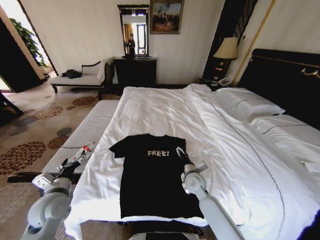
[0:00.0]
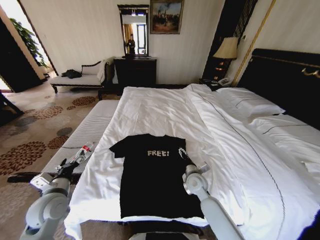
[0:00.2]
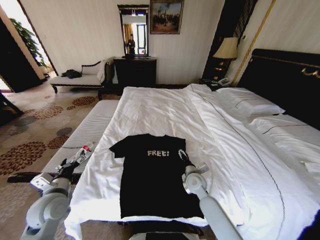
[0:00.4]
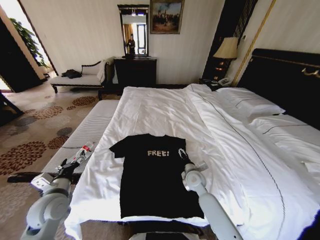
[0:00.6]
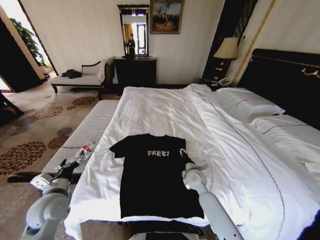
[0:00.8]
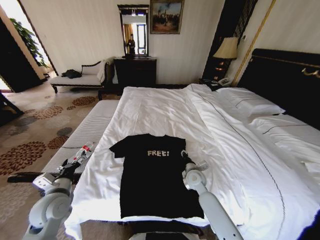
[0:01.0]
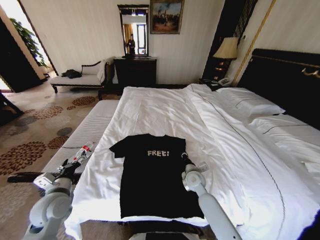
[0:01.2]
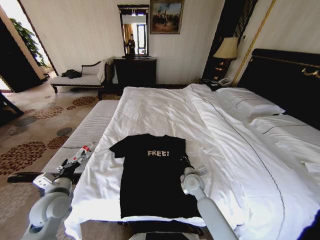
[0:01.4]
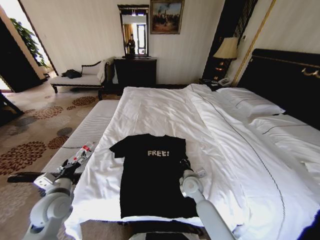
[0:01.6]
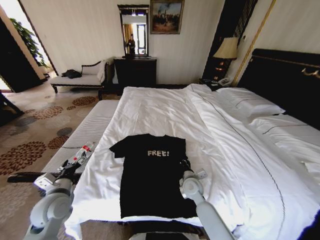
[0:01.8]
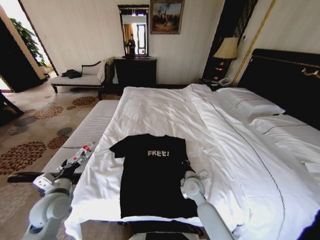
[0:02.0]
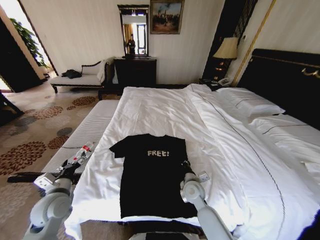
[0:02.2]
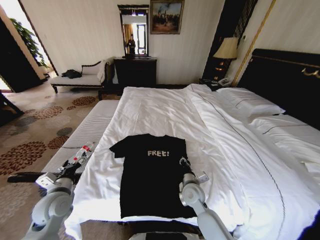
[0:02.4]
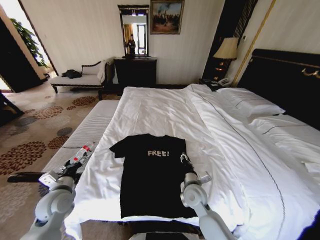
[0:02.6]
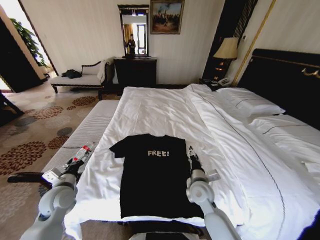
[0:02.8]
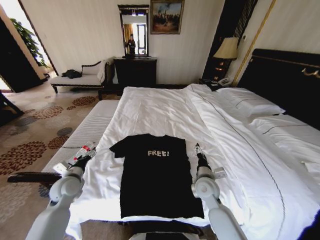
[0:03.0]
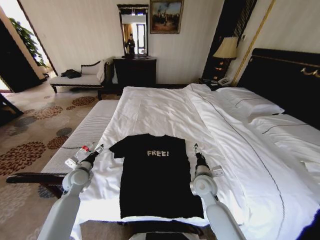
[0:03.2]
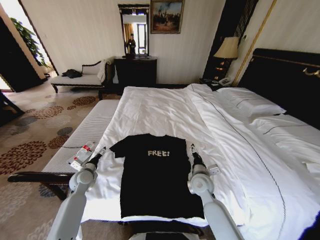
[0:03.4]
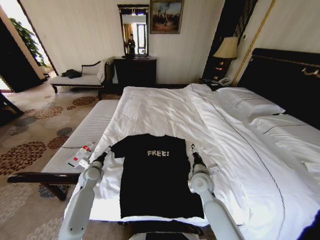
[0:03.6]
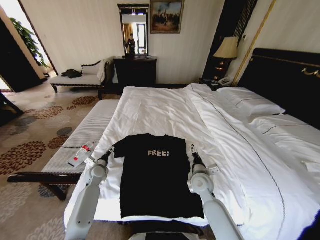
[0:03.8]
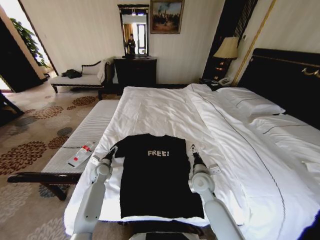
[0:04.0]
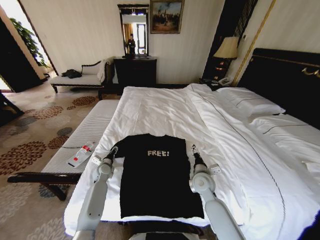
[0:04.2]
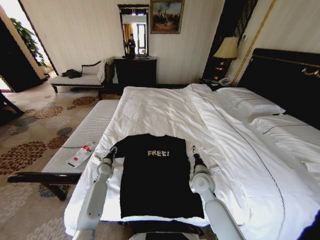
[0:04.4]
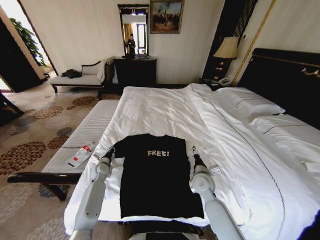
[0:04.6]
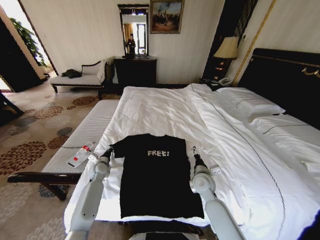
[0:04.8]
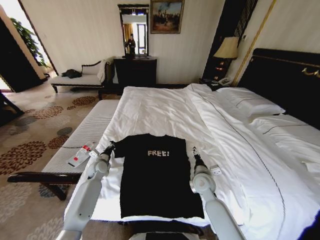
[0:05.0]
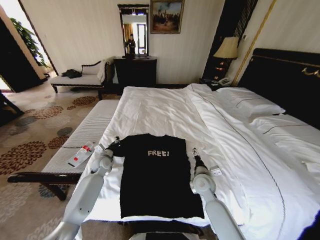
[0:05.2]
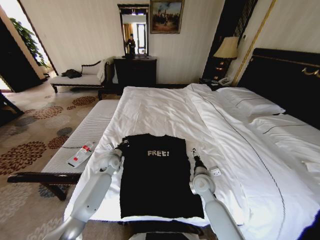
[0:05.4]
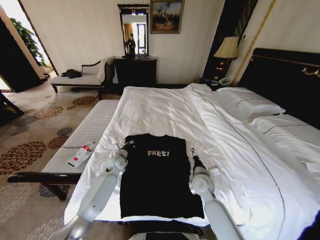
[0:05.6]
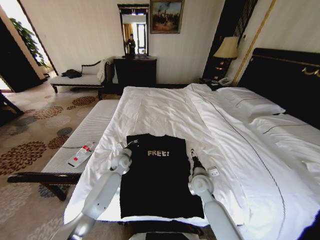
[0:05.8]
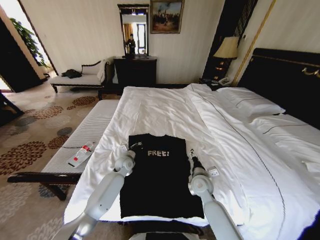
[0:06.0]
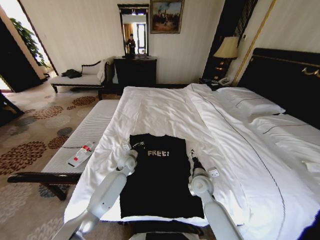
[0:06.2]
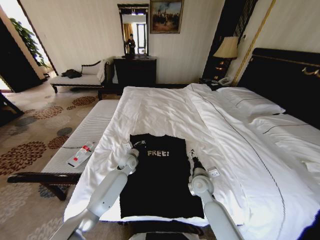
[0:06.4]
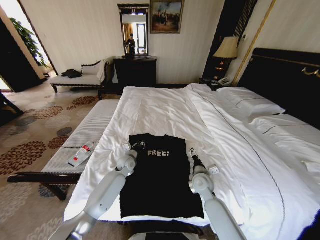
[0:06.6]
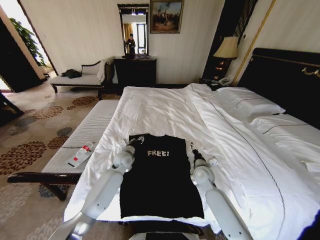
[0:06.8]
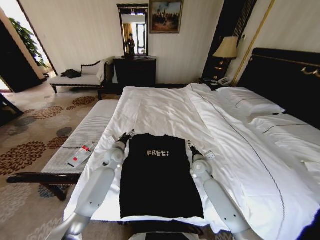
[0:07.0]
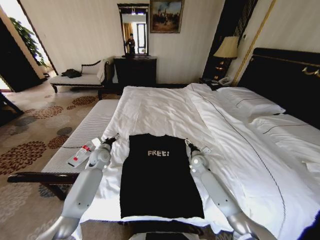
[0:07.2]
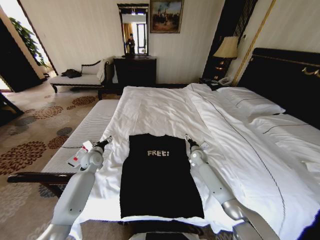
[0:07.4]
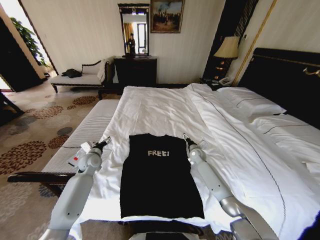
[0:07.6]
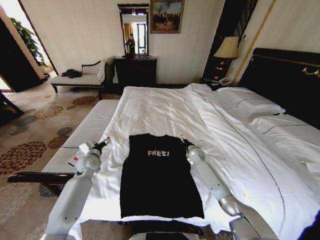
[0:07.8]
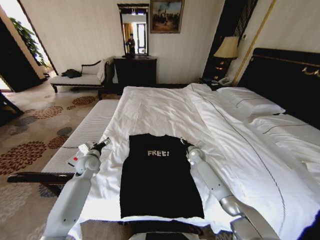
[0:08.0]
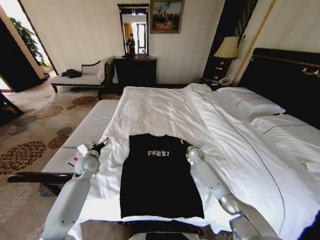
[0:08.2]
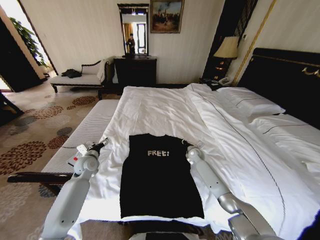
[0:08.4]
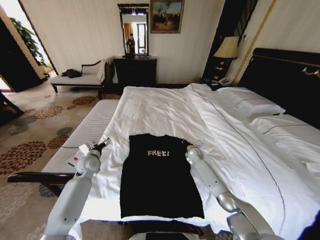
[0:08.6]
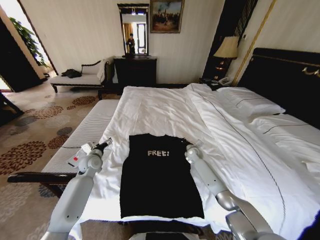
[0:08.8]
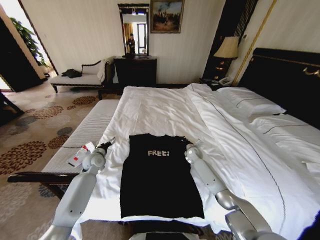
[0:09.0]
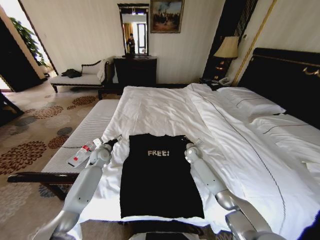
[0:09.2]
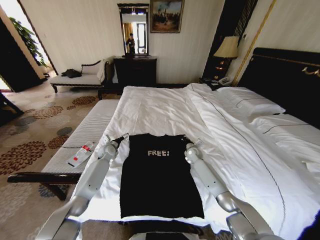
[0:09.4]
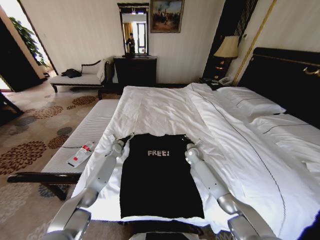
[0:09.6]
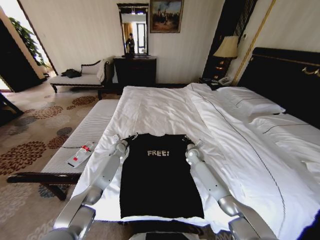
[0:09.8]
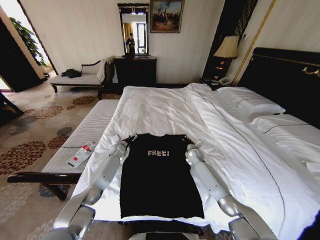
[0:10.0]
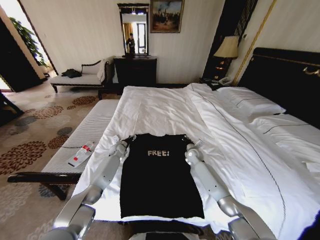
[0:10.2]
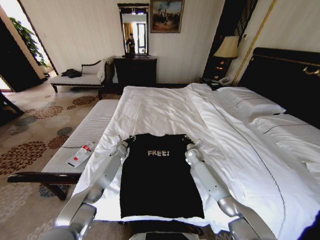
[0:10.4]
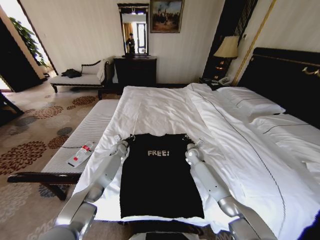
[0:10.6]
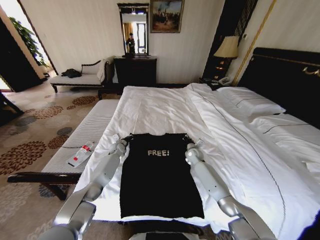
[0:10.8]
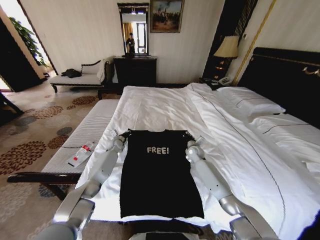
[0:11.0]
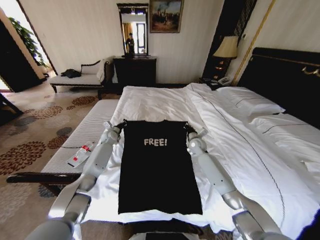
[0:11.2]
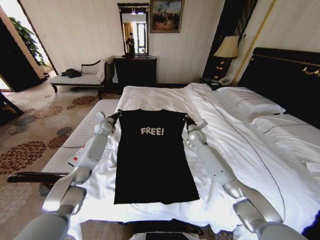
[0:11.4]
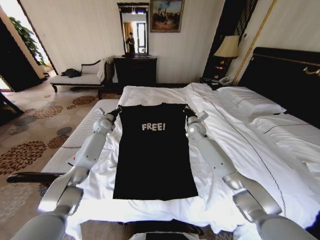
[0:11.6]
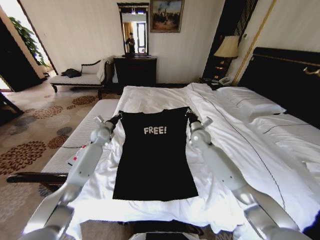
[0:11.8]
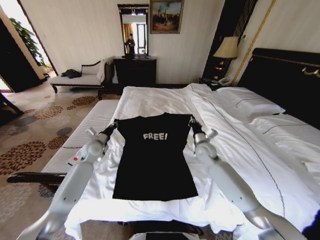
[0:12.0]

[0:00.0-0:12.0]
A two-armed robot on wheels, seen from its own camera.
Task of the whole recording: Fold the clothes on the bed.
0.0 to 1.6 s: The right gripper closes.
1.6 to 3.0 s: The left gripper moves forward, about 5 cm; the right gripper travels upward by some 5 cm, and opens up.
3.0 to 4.4 s: The left gripper travels forward, downward and to the right by about 20 cm, and closes.
4.4 to 6.0 s: The left gripper goes approximately 15 cm to the right, and closes its fingers.
6.0 to 7.6 s: The left gripper goes roughly 15 cm to the left, and opens up. Meanwhile the right gripper is displaced forward by about 20 cm.
7.6 to 9.0 s: The right gripper closes.
9.0 to 10.4 s: The left gripper travels forward, downward and to the right by roughly 15 cm, and closes.
10.4 to 12.0 s: The left gripper moves upward, backward and to the left, roughly 20 cm, and closes up. The right gripper travels upward and backward by approximately 15 cm.

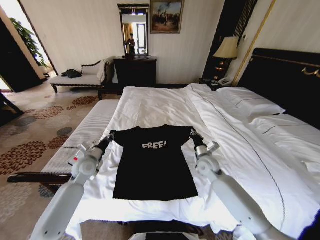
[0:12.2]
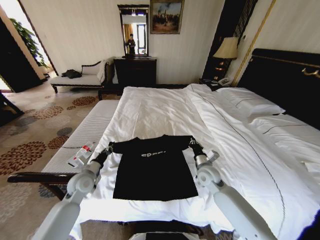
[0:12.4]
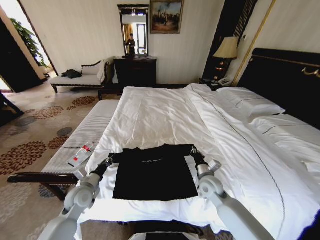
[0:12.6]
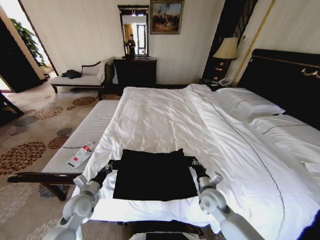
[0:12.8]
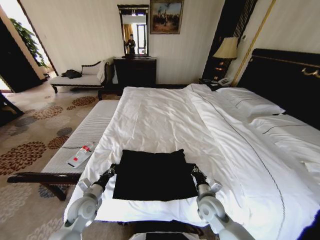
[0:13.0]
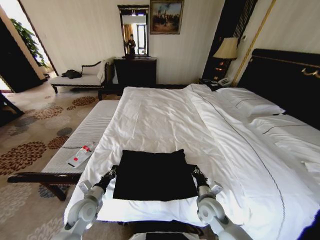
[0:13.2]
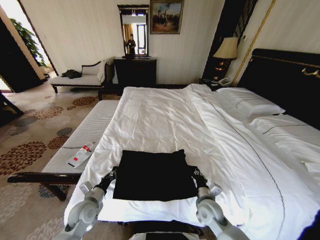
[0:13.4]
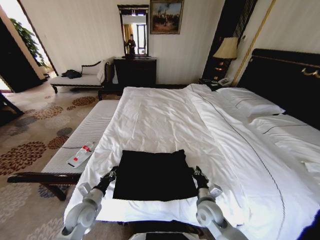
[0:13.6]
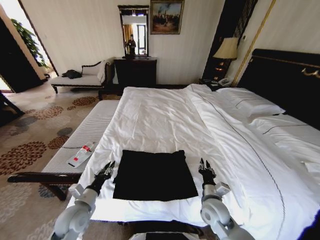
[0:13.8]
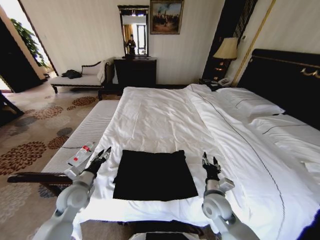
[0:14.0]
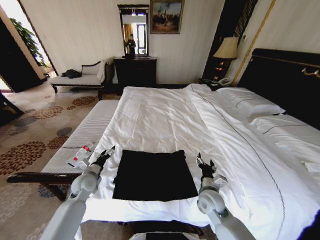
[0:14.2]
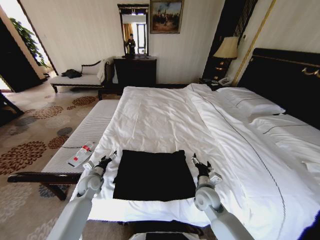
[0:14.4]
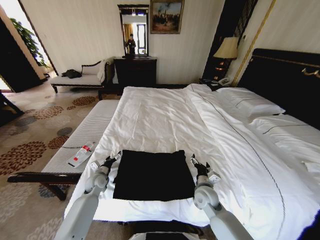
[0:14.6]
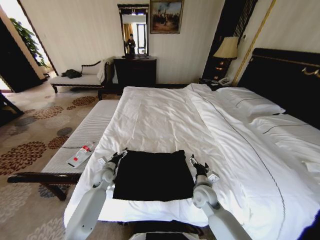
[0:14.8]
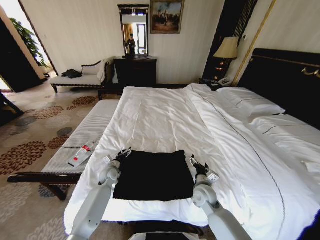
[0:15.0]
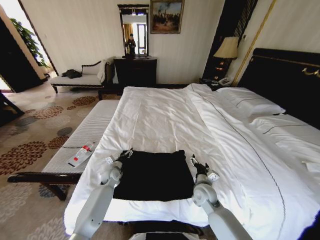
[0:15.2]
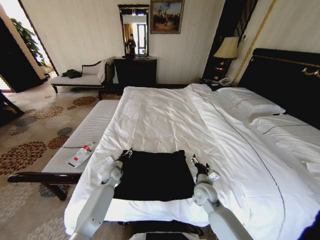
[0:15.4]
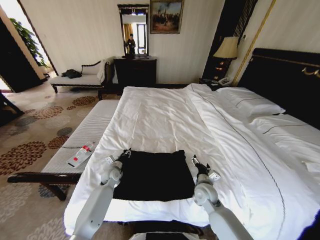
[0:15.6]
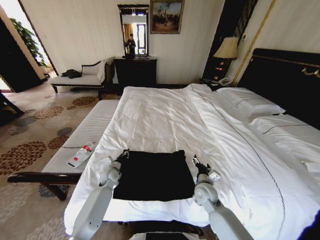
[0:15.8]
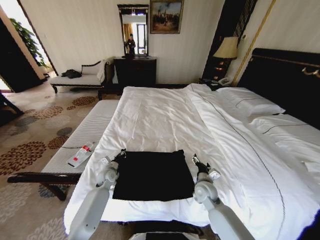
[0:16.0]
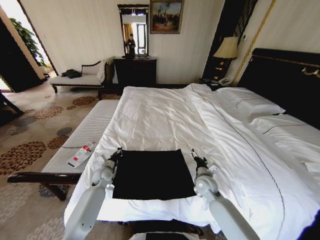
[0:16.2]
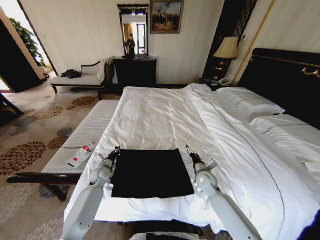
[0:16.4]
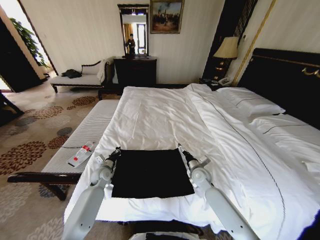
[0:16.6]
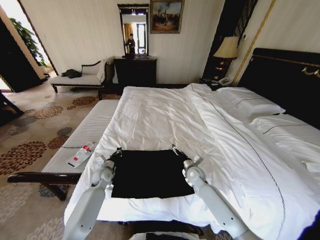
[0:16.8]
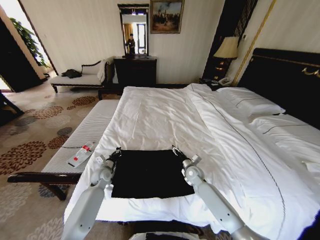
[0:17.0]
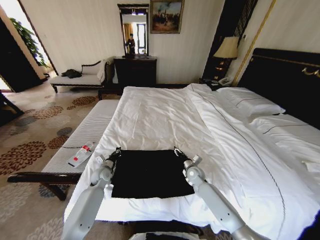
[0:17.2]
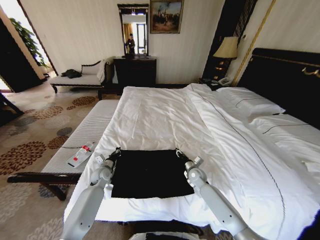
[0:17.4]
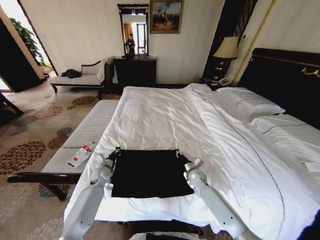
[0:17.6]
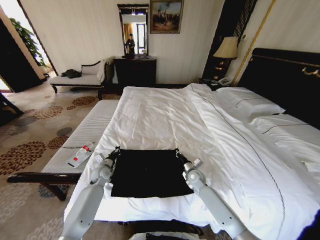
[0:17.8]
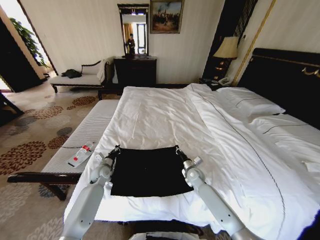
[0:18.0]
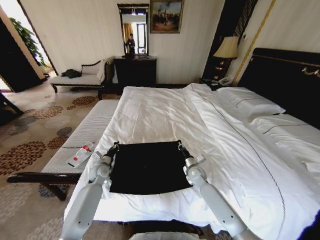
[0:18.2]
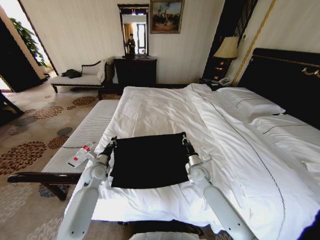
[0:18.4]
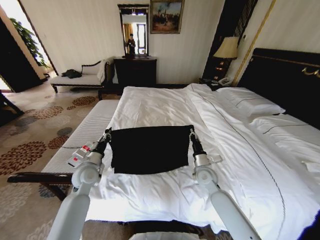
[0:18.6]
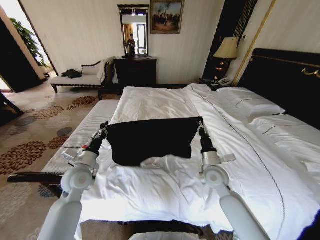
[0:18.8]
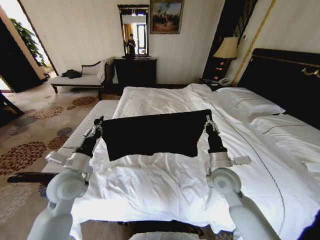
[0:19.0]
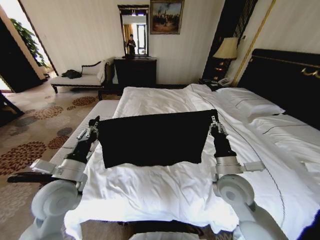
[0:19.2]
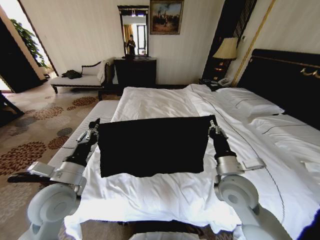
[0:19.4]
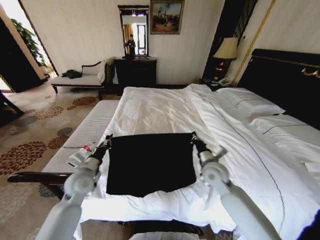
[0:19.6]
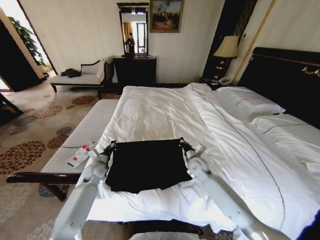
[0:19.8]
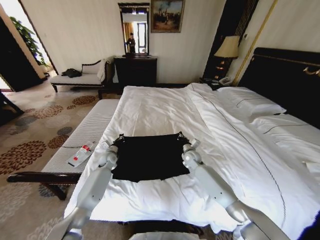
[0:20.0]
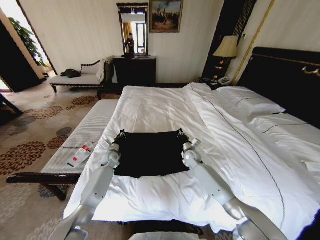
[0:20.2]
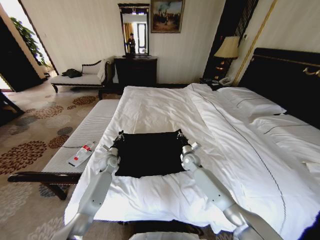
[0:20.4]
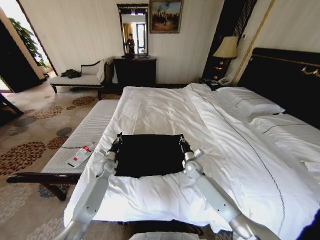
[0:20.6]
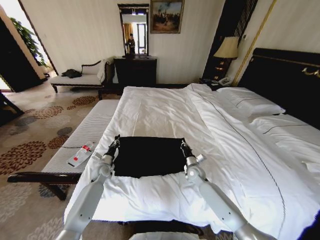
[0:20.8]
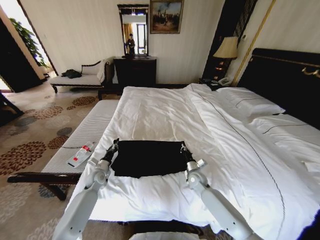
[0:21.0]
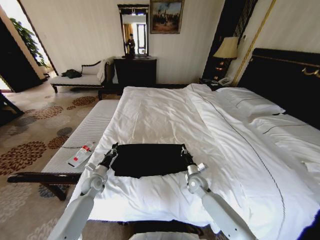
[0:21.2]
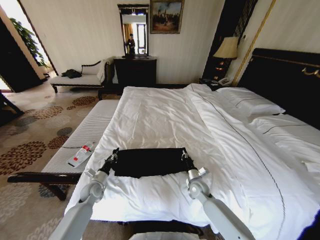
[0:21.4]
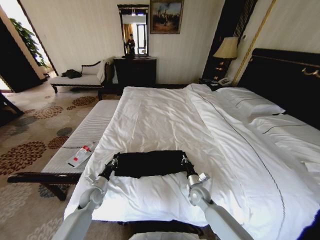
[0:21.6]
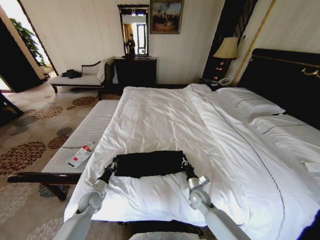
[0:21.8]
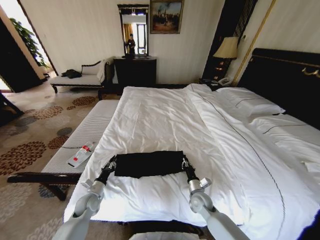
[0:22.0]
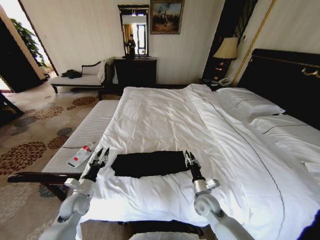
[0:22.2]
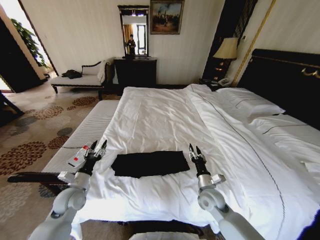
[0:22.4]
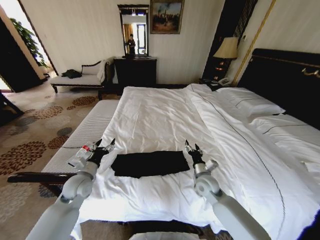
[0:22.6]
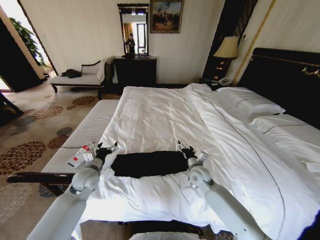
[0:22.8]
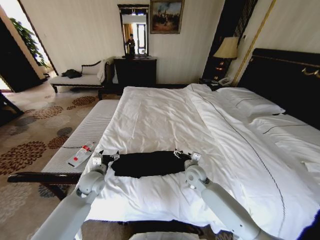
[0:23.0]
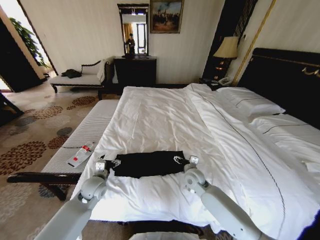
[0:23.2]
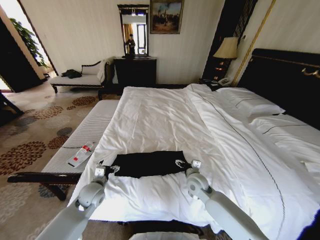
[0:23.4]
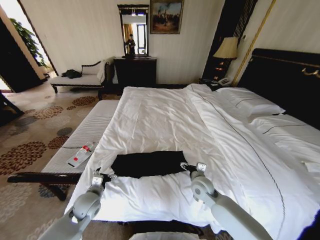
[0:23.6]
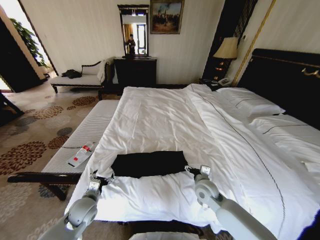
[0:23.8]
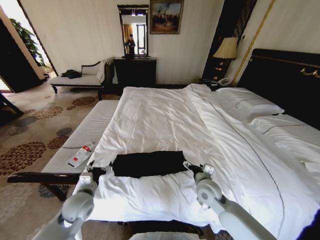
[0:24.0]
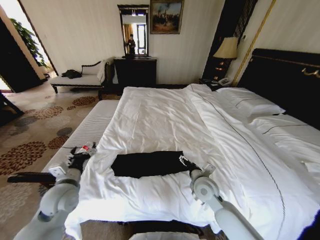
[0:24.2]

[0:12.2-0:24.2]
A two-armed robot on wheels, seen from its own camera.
Task of the whole recording: Fold the clothes on the bed.
12.2 to 13.8 s: Both grippers move backward, some 15 cm.
13.8 to 15.2 s: The right gripper is displaced forward by roughly 5 cm, and opens its fingers; the left gripper is displaced forward and downward by about 20 cm, and opens.
15.2 to 16.6 s: The right gripper is displaced forward by roughly 10 cm. Meanwhile the left gripper closes.
16.6 to 18.2 s: The right gripper closes its fingers.
18.2 to 19.8 s: The right gripper is displaced upward by roughly 5 cm. The left gripper goes upward and returns, some 20 cm each way.
19.8 to 21.2 s: Both grippers move downward and backward, some 10 cm.
21.2 to 22.6 s: The left gripper travels upward and backward by approximately 15 cm, and opens up. Meanwhile the right gripper moves upward, roughly 10 cm, and opens.
22.6 to 24.2 s: The right gripper moves approximately 5 cm, while the left gripper travels backward by about 5 cm.
